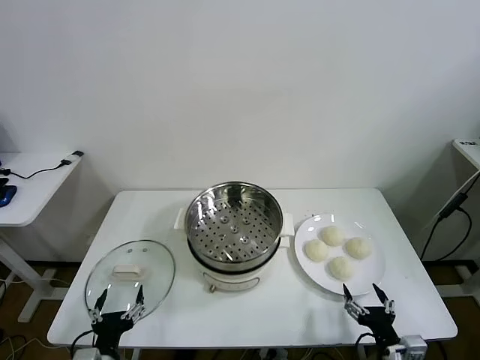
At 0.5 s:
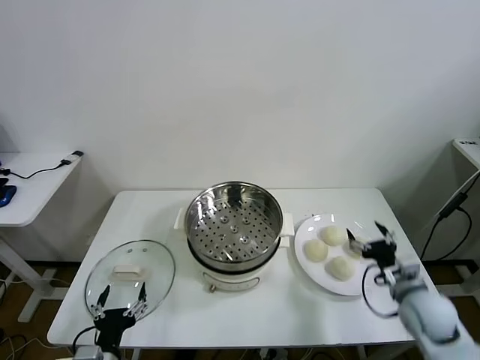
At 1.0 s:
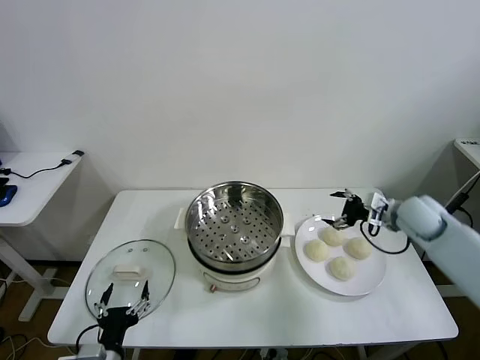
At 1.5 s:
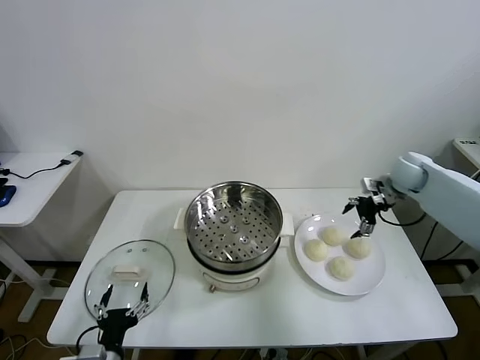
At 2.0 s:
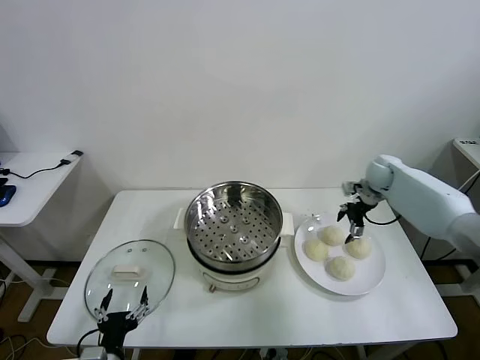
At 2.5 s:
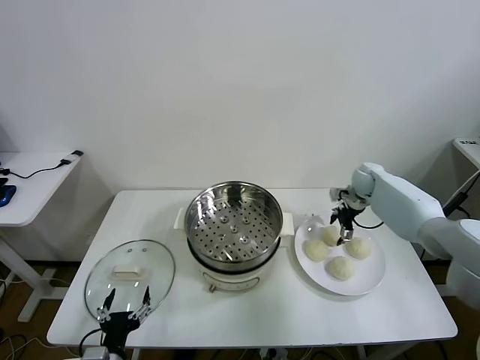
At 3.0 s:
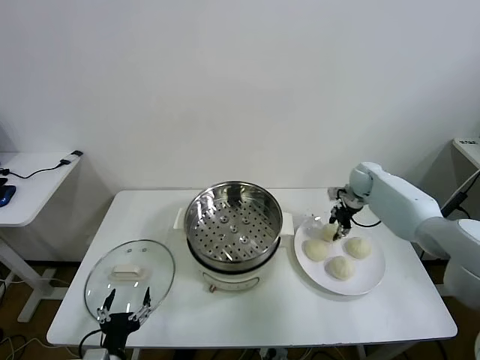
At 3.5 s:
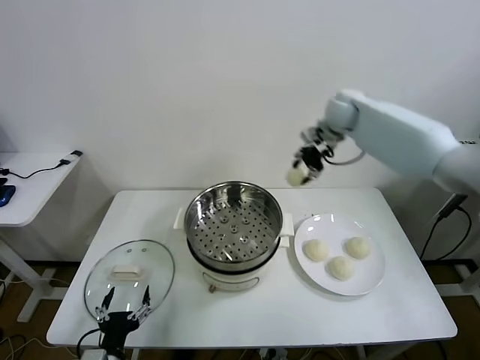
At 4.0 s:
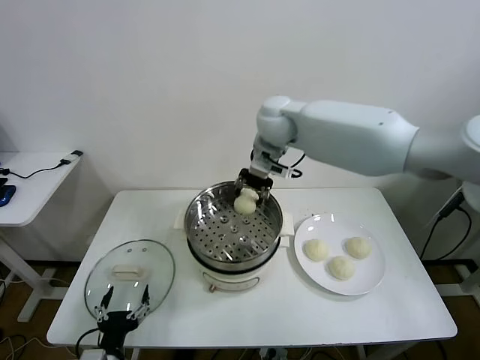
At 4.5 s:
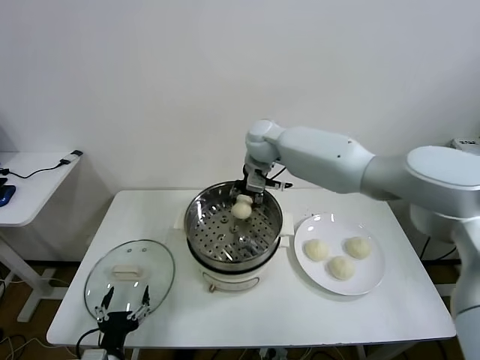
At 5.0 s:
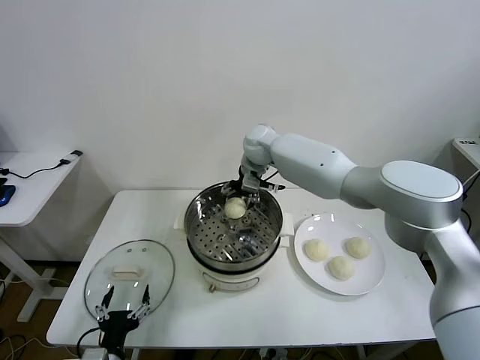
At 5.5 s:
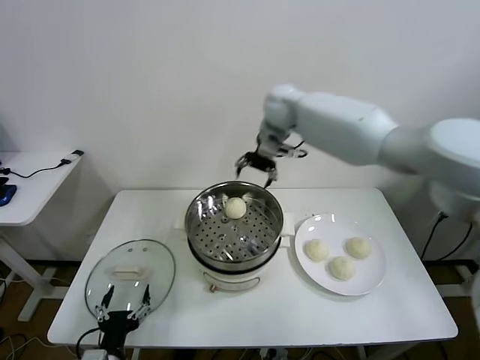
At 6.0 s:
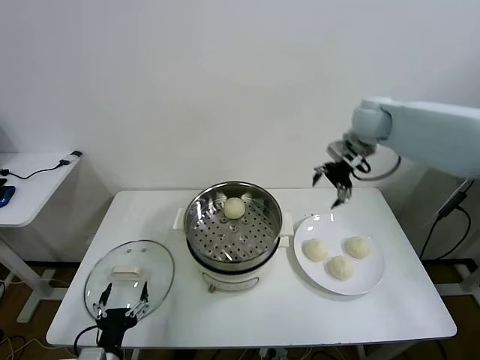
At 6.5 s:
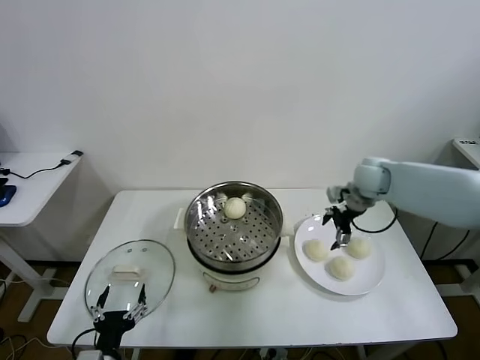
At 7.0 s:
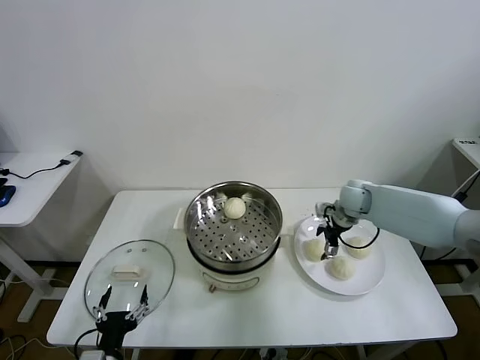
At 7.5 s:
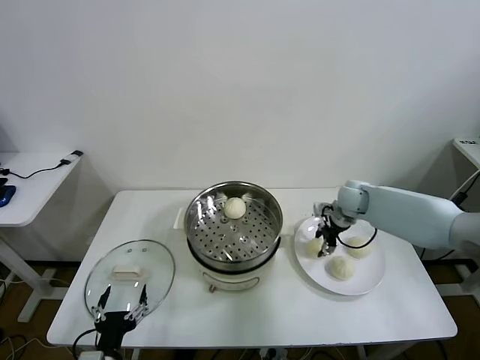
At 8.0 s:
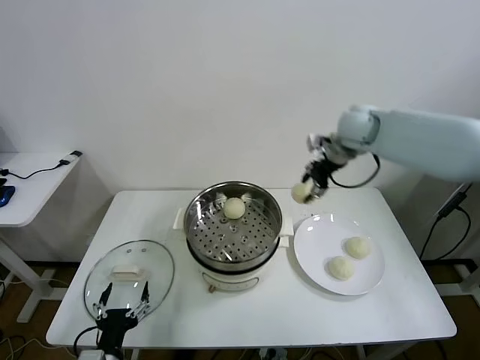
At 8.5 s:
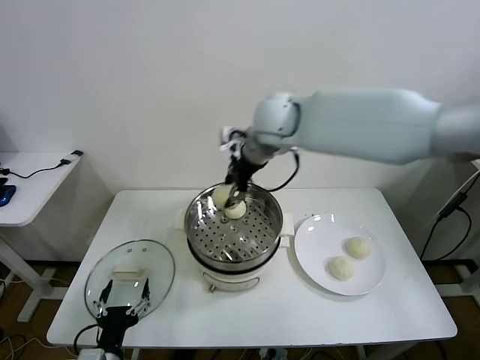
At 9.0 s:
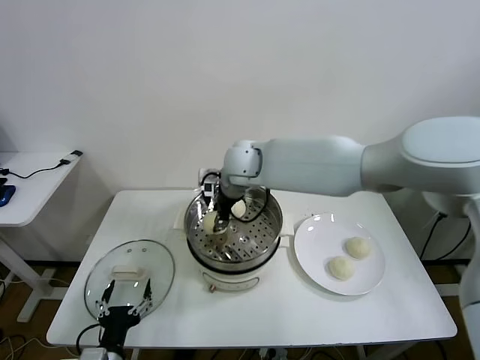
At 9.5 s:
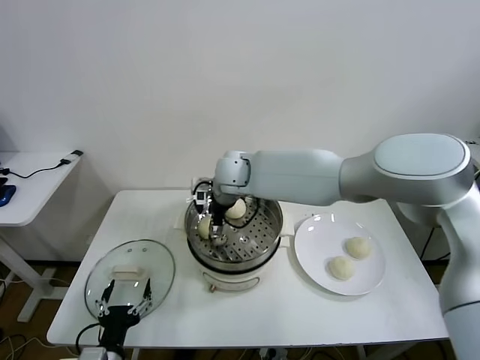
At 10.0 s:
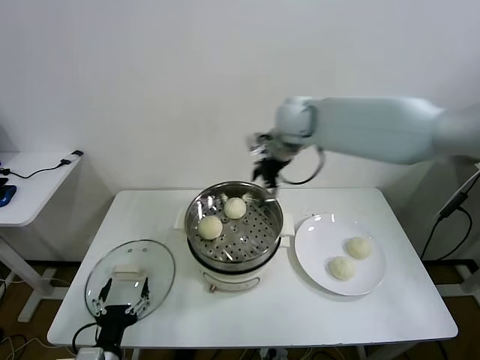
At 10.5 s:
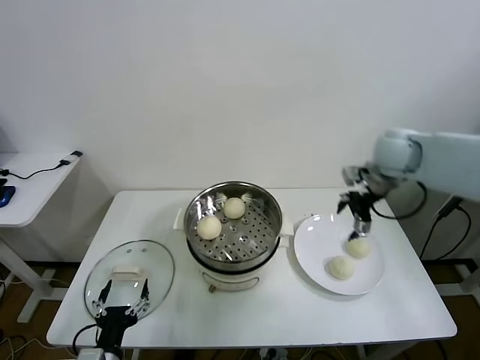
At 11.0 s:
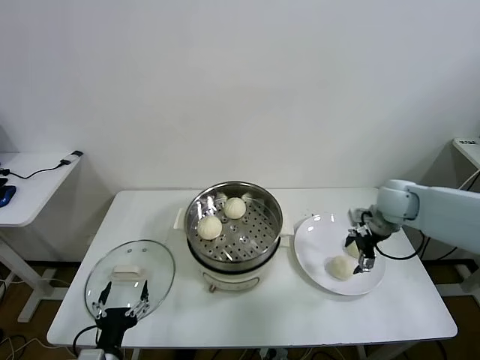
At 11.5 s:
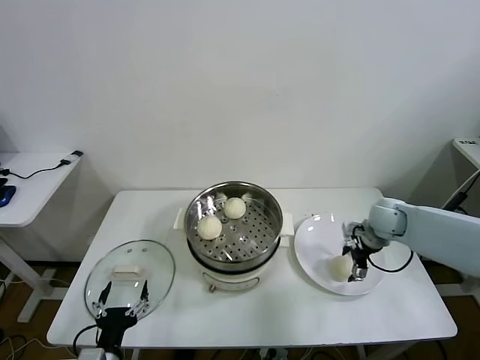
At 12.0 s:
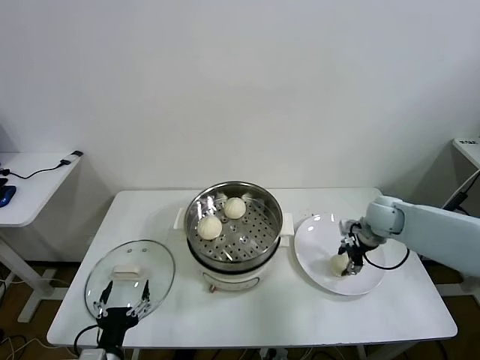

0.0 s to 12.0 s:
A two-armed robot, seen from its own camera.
Task of the whole recording: take steamed baozi put them in steamer then cover it.
Step, 0.0 to 2.5 s: Grasp the baozi in the plate with right gripper.
Step, 3.0 to 5.0 s: Place the baozi on the steamer with right gripper.
Step, 5.5 to 7.0 s: Grasp the baozi in the plate with right gripper.
Step, 7.5 to 9.5 s: Place the baozi on the steamer with right gripper.
Step, 10.0 to 11.5 s: Grasp the baozi in the plate with right gripper.
2.0 to 4.0 s: The right gripper is displaced to the left and upward by approximately 35 cm, and closes.
4.0 to 6.0 s: The right gripper goes approximately 25 cm to the right, and opens its fingers.
6.0 to 8.0 s: The right gripper shifts roughly 10 cm to the left, goes downward and returns, some 20 cm each way, and closes.
8.0 to 10.0 s: The right gripper moves approximately 25 cm to the left and comes back, and opens.
10.0 to 12.0 s: The right gripper moves downward and to the right, approximately 30 cm, and closes.

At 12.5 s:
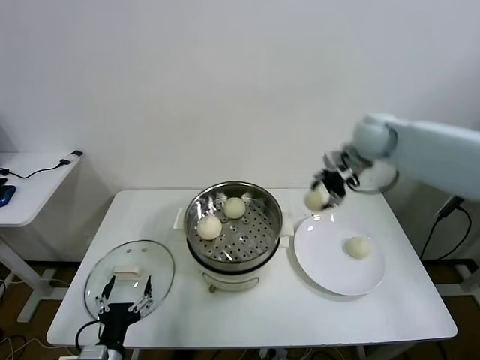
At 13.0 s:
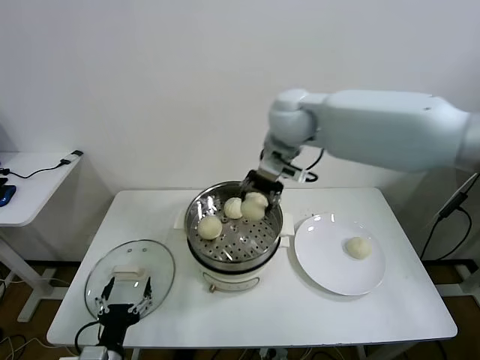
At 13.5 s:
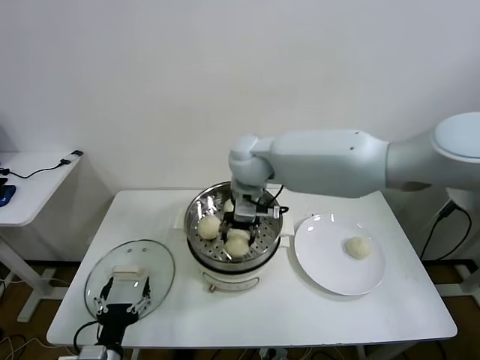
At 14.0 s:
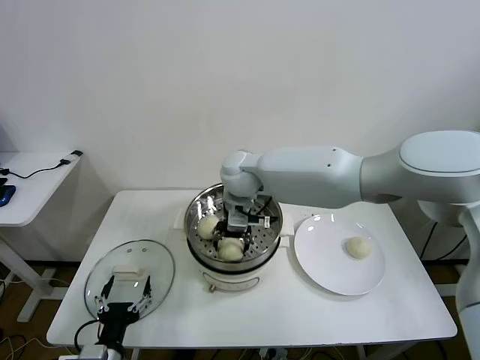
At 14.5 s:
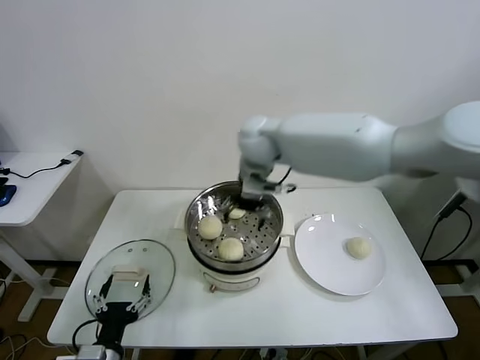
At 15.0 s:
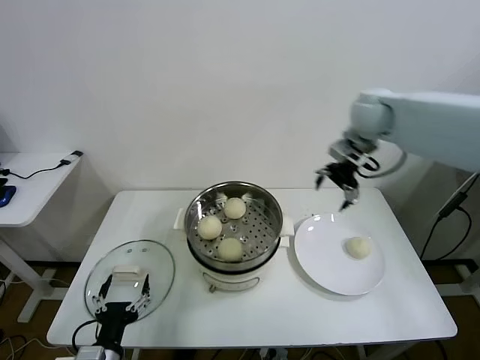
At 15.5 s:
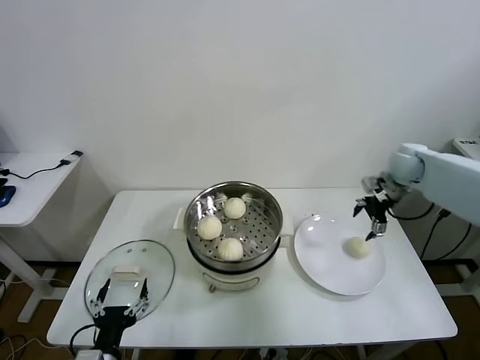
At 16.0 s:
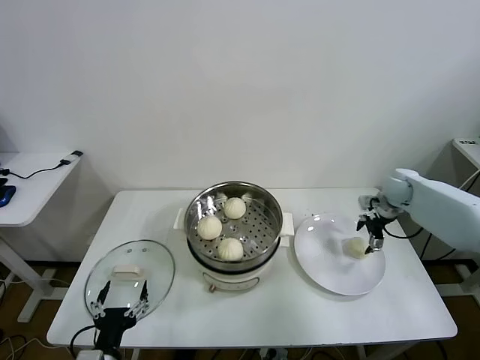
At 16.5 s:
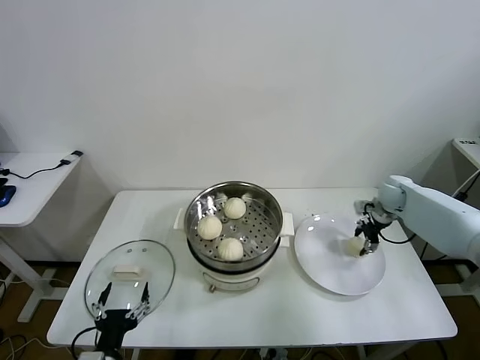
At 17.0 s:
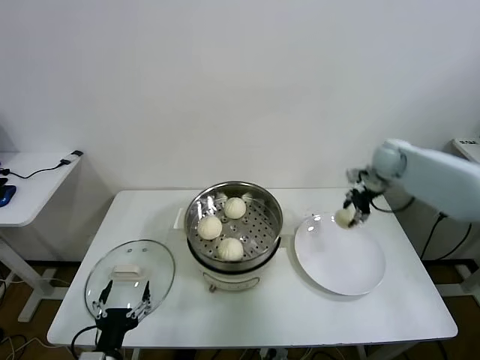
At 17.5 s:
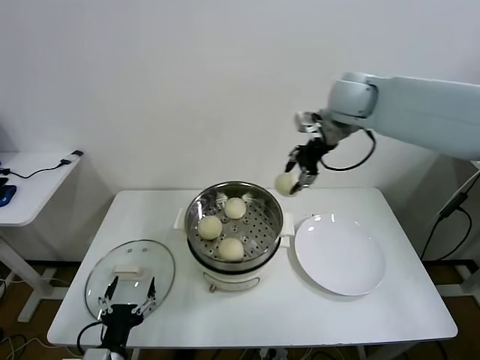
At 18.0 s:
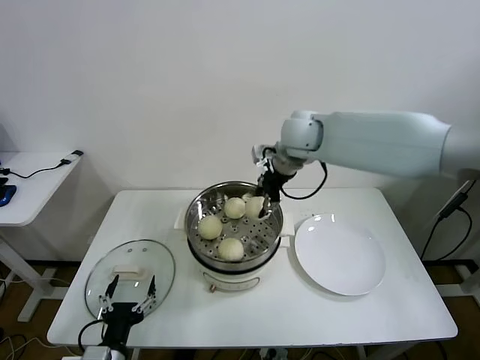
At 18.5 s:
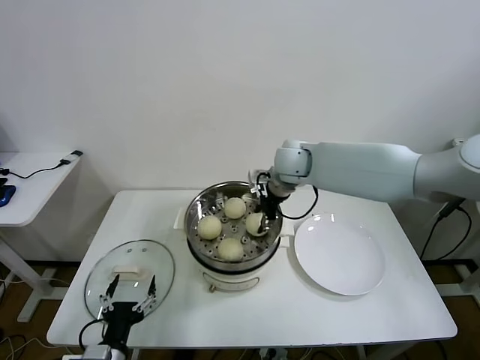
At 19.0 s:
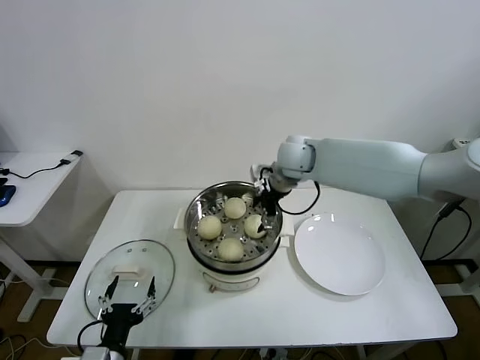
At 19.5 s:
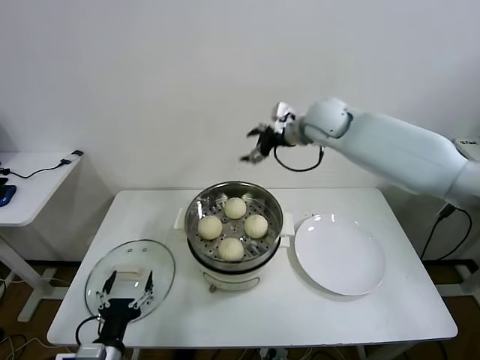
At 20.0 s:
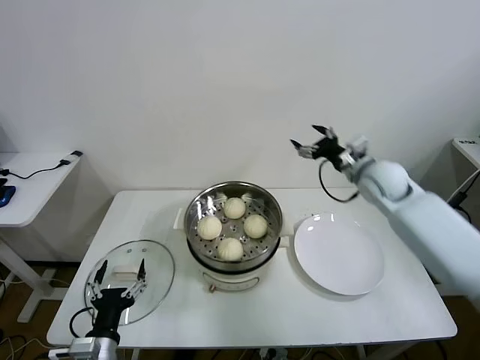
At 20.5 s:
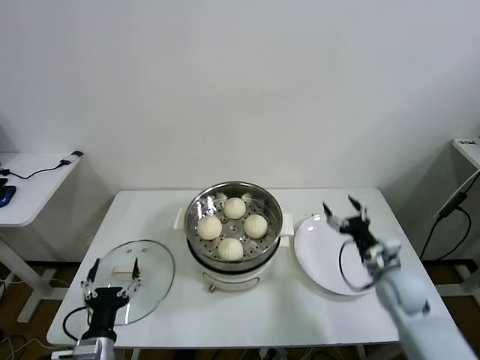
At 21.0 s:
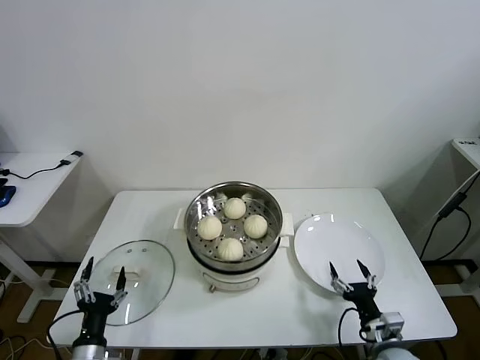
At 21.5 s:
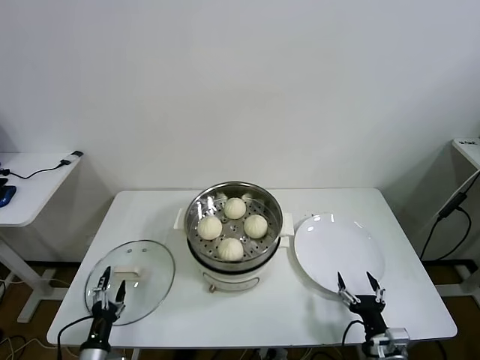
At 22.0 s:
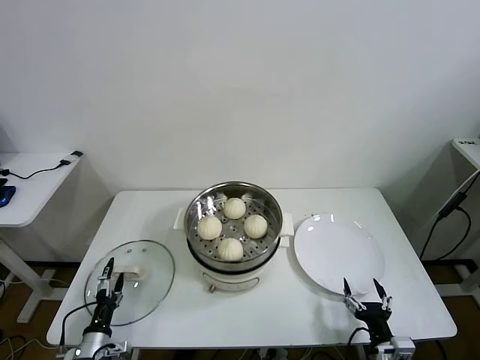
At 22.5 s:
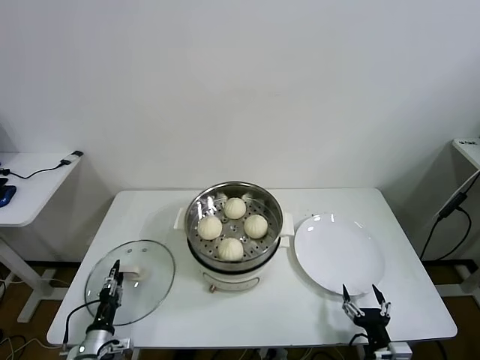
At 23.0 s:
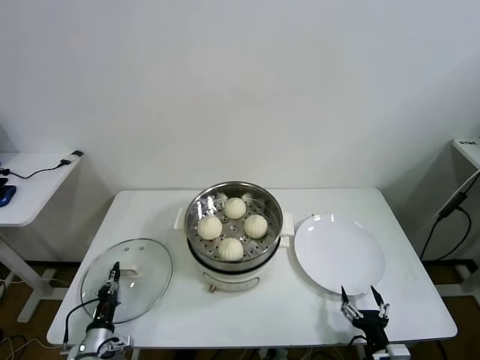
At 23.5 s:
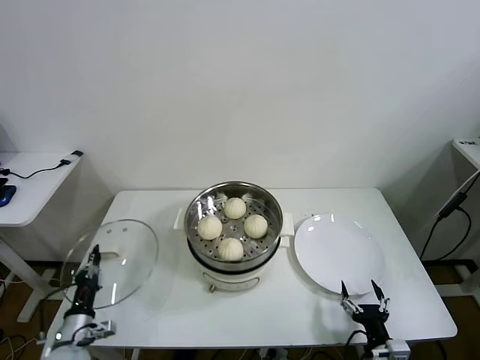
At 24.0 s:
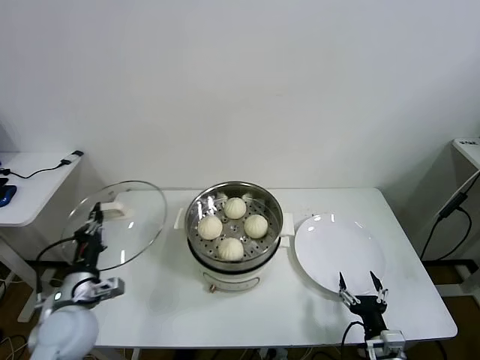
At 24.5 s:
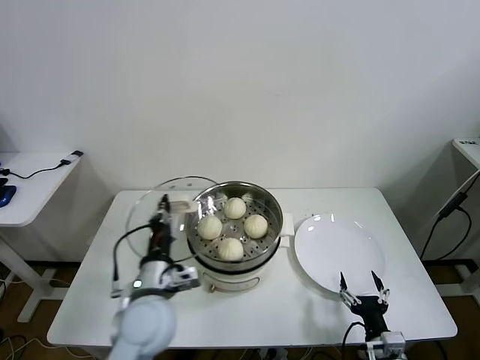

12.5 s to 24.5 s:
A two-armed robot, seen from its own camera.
Task of the whole recording: take steamed baozi put them in steamer then cover it.
Step, 12.5 to 14.0 s: Place the baozi on the steamer with right gripper.
Step, 14.5 to 16.5 s: Grasp the baozi in the plate with right gripper.
Step, 17.0 to 18.5 s: Place the baozi on the steamer with right gripper.
Step, 19.0 to 22.5 s: Grasp the pot lid with left gripper.
12.5 to 14.5 s: The right gripper heads to the left, covering about 20 cm, and opens.
14.5 to 16.5 s: The right gripper is displaced to the right and downward by about 40 cm, and closes.
16.5 to 18.5 s: The right gripper is displaced to the left and upward by roughly 35 cm.
18.5 to 20.5 s: The right gripper is displaced to the right, downward and backward by about 40 cm, and opens up.
20.5 to 22.5 s: The right gripper shifts some 20 cm backward and downward; the left gripper travels downward and to the left by roughly 15 cm, and closes up.
22.5 to 24.5 s: The left gripper goes roughly 30 cm upward and to the right, and closes.

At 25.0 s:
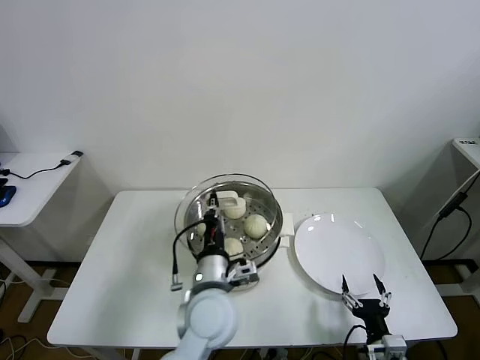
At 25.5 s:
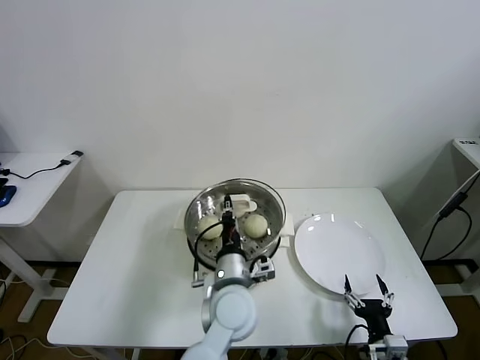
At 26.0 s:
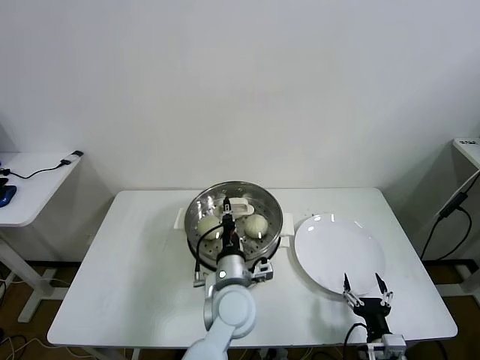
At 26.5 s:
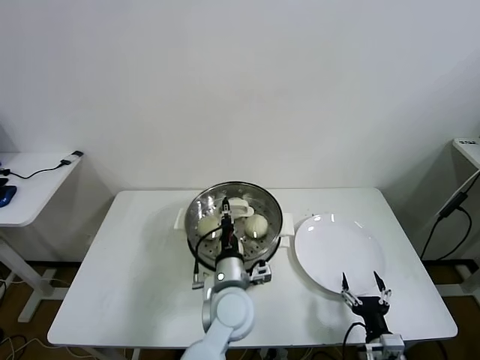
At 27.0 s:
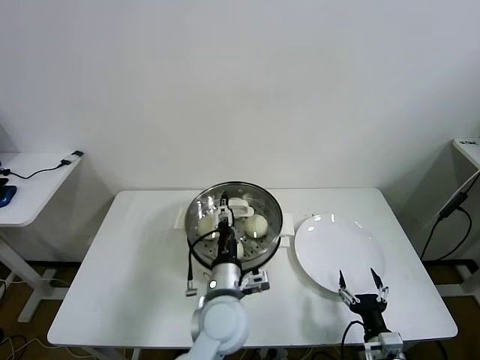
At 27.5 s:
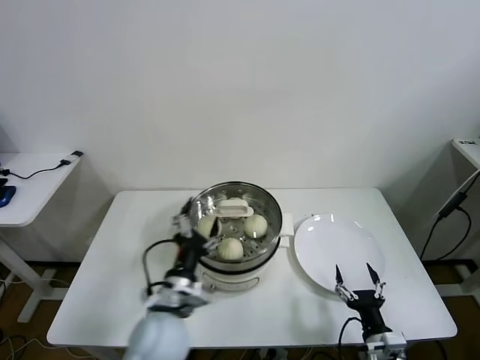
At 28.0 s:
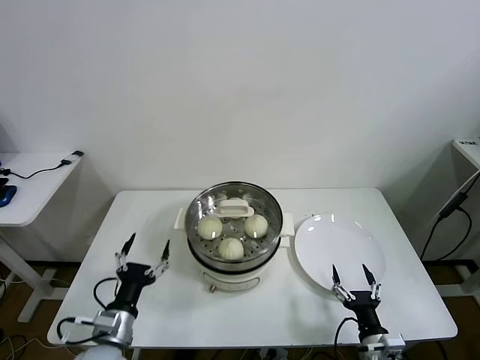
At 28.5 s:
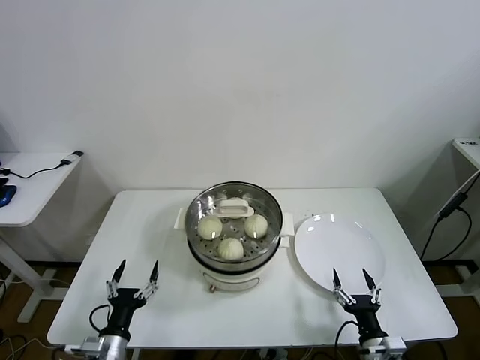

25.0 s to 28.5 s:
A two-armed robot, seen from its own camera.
Task of the whole recording: take steamed baozi put them in steamer then cover it.
25.0 to 27.0 s: The left gripper opens up.
27.0 to 28.5 s: The left gripper heads to the left and downward, covering approximately 30 cm.
